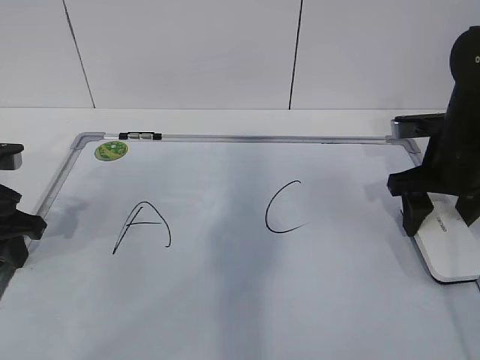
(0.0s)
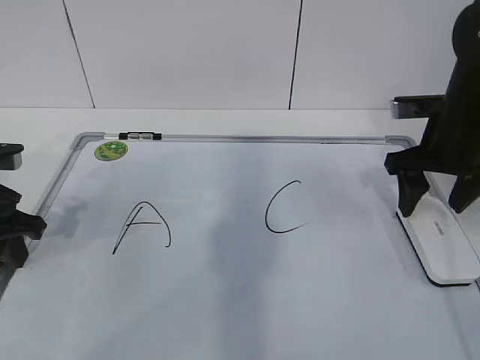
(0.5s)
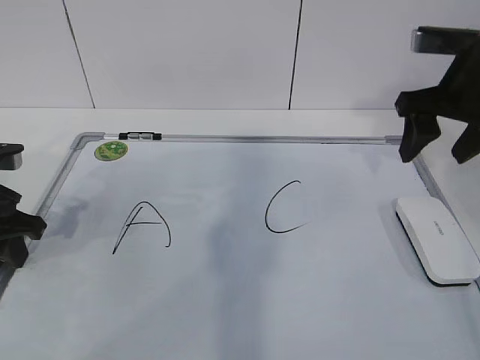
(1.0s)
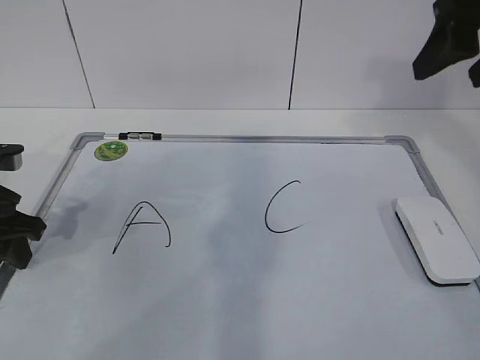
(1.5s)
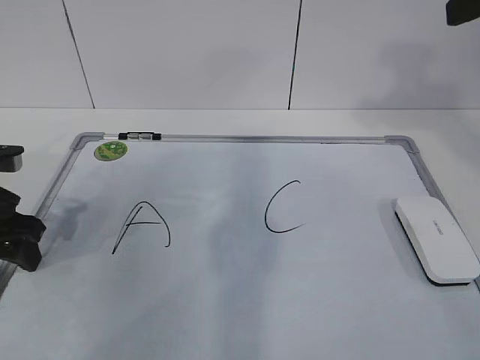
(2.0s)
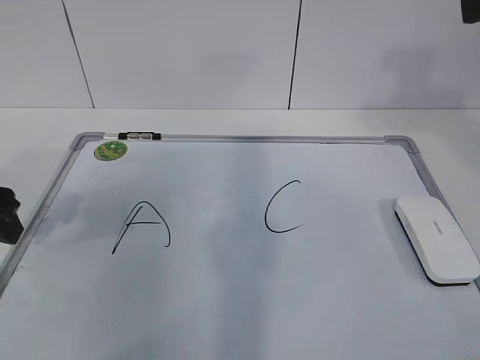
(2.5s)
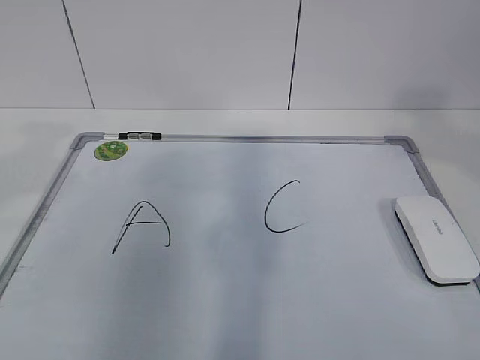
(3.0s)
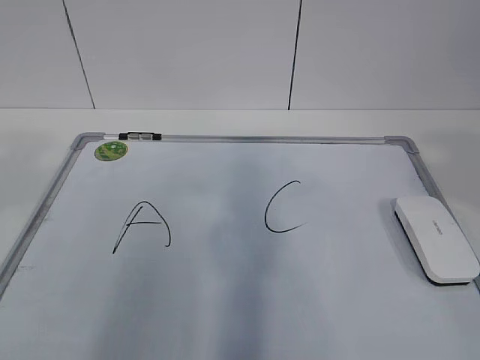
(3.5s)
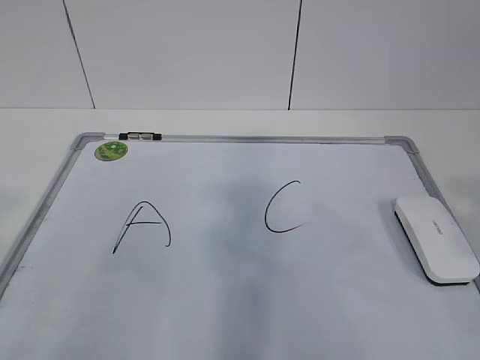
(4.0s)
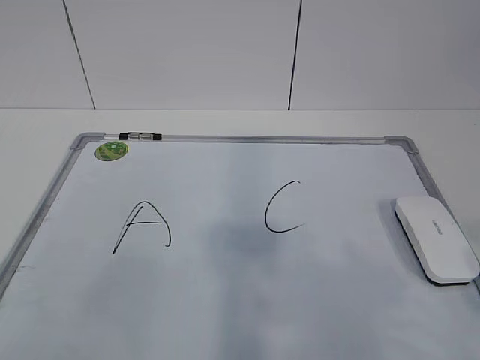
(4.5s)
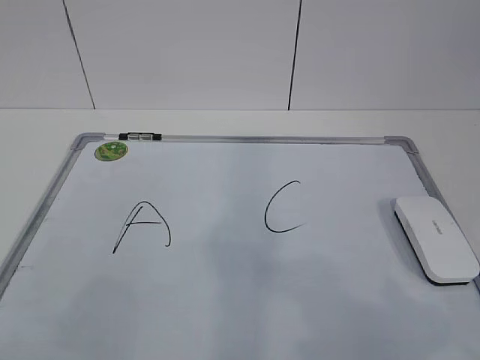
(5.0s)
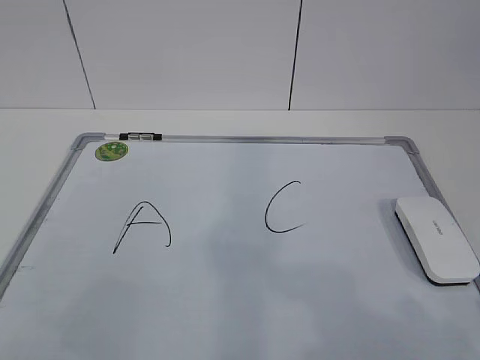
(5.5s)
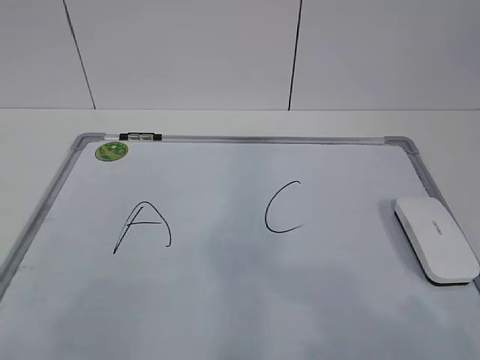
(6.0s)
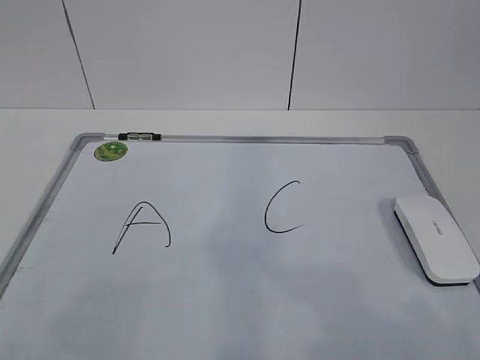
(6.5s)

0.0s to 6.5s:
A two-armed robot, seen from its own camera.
Task of the whole recording: pick up the eraser on the blackboard and erase the letter "B".
0.0s to 2.0s: The left gripper opens its fingers. The right gripper shifts roughly 25 cm upward.
2.0s to 4.5s: The left gripper heads backward and upward, covering roughly 30 cm, while the right gripper heads backward, covering approximately 25 cm.
